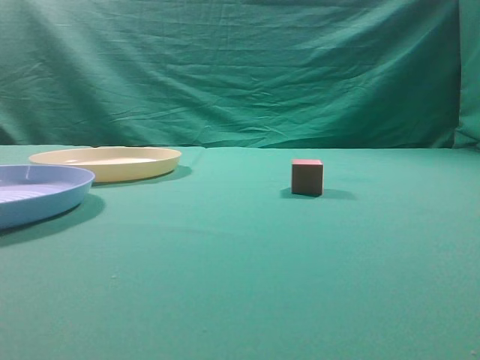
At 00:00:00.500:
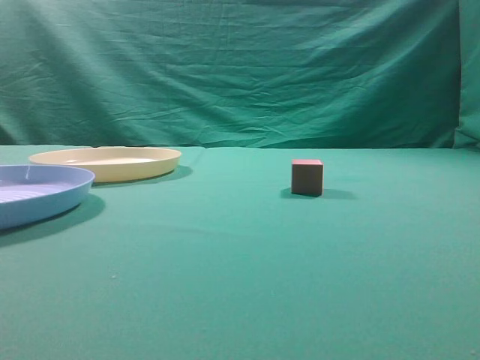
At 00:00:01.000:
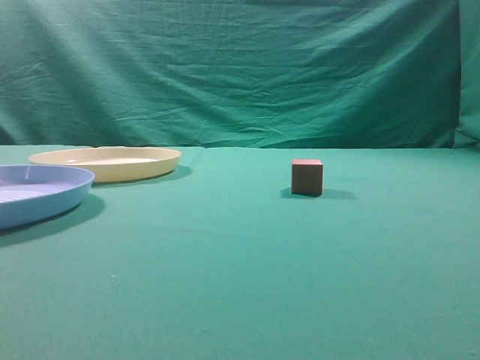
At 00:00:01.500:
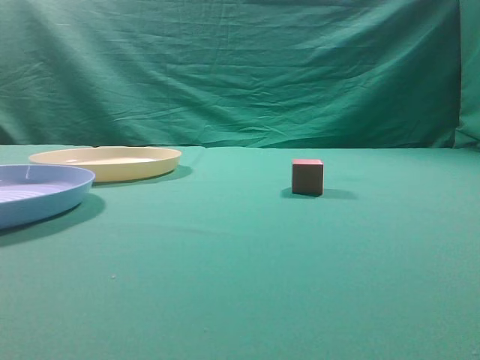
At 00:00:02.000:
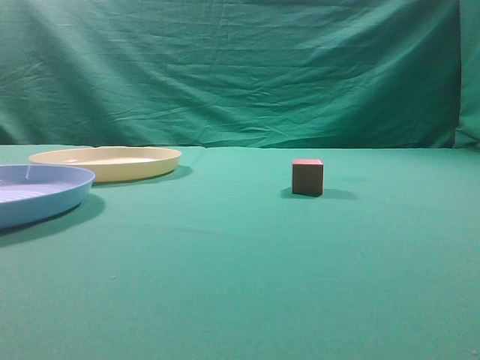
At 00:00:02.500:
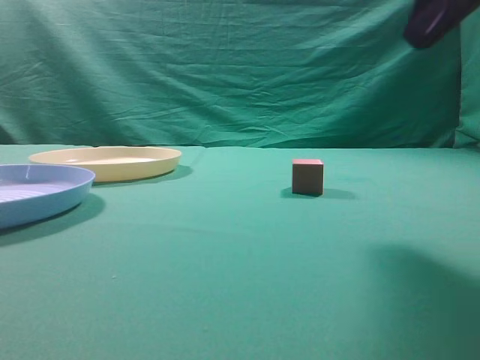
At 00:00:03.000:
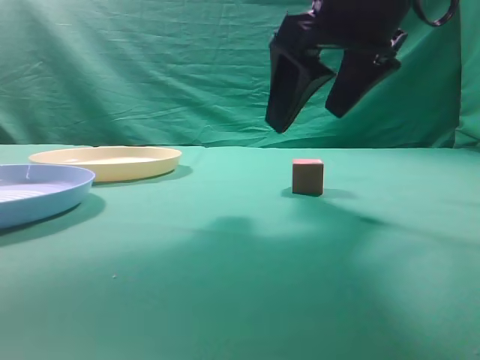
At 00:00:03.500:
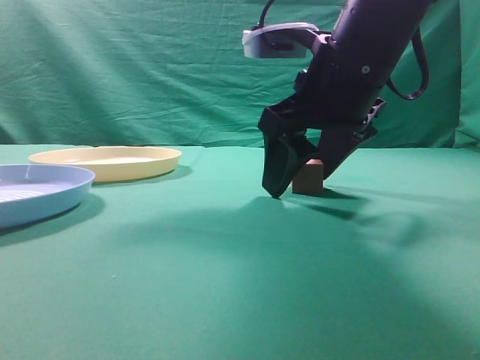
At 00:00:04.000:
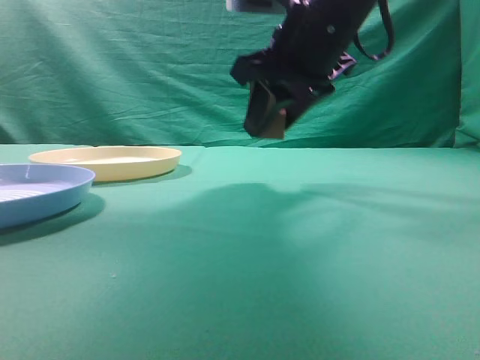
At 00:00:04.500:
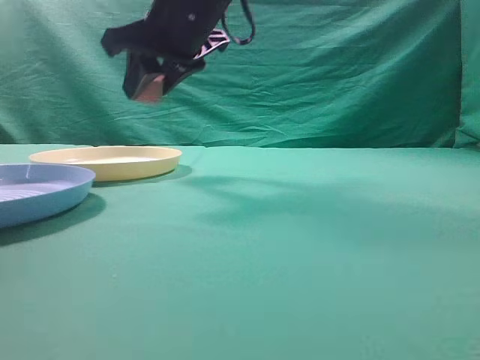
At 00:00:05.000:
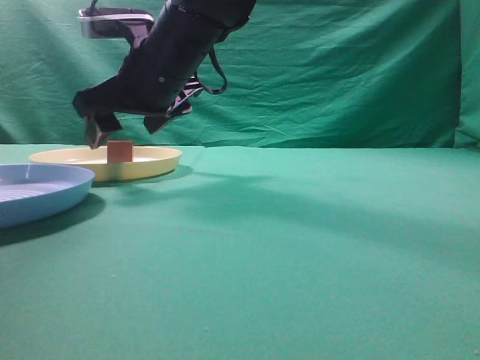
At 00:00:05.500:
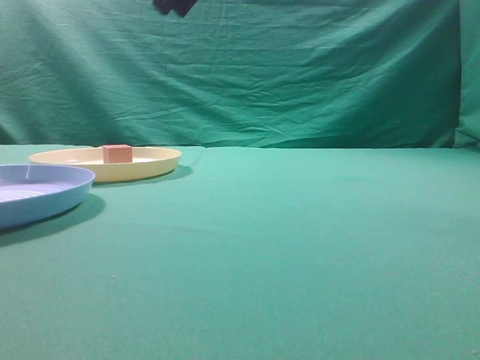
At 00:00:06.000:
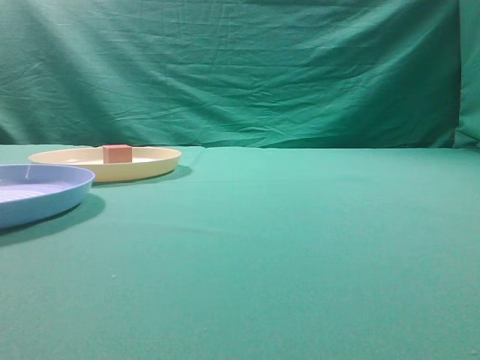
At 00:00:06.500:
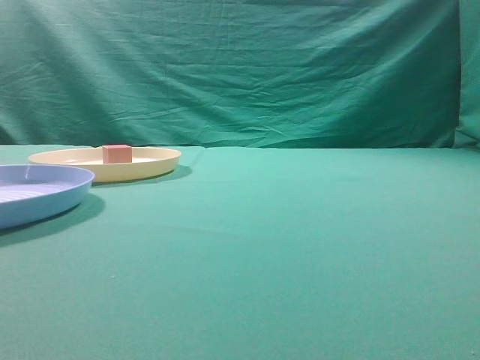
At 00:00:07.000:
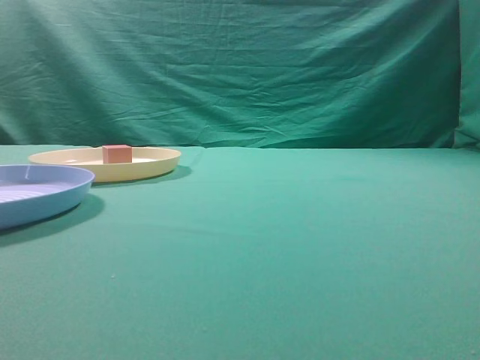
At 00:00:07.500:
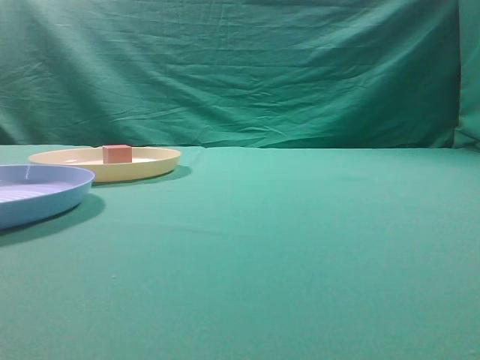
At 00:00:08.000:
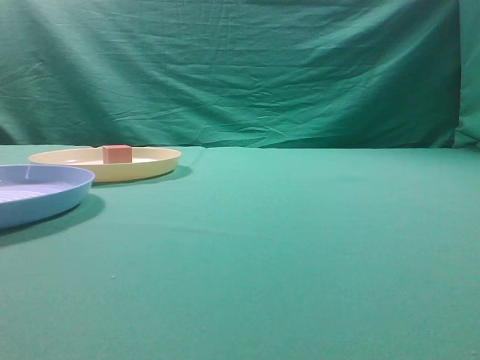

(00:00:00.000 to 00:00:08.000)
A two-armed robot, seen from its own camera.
Task of the whole recording: pick up the cube block from the table and put it on the plate.
Step, 00:00:00.000 - 00:00:04.000: Grasp the small cube on the table.
Step, 00:00:04.500 - 00:00:05.000: Place it into the yellow plate.
00:00:02.000 - 00:00:04.000: The right gripper heads forward and to the left, covering about 30 cm, and opens its fingers.
00:00:04.000 - 00:00:06.000: The right gripper goes some 25 cm upward and backward, and closes up.
